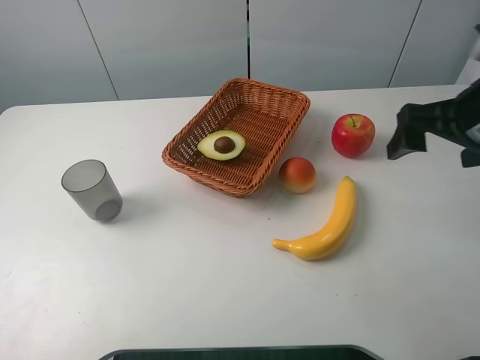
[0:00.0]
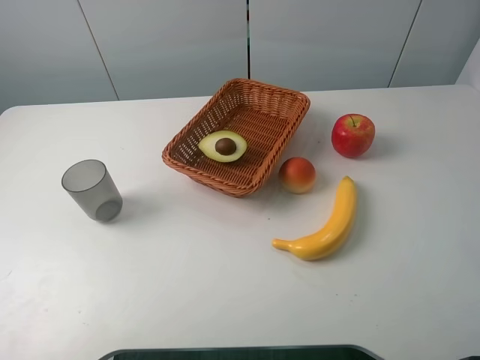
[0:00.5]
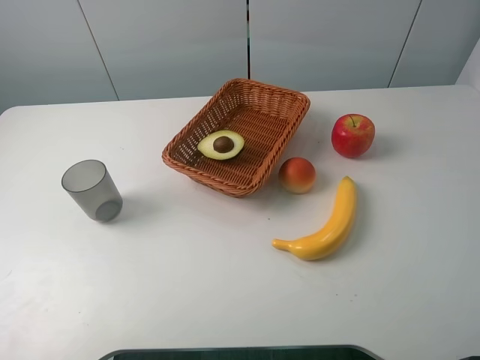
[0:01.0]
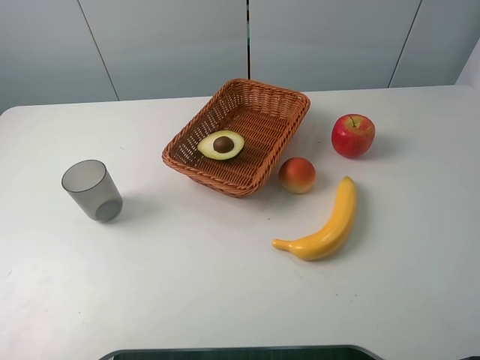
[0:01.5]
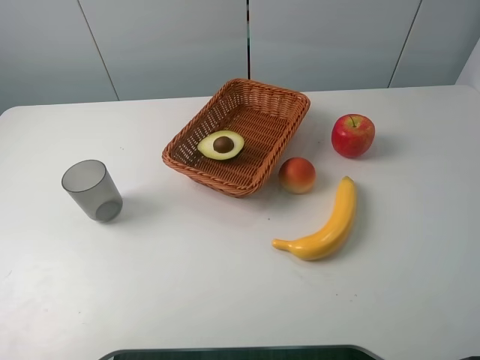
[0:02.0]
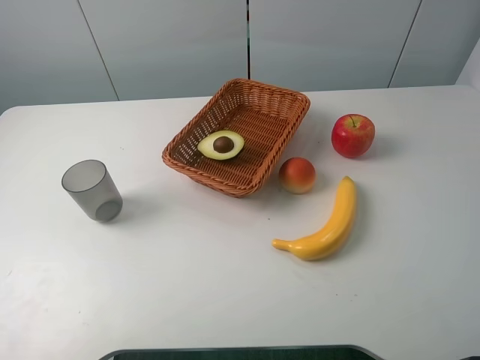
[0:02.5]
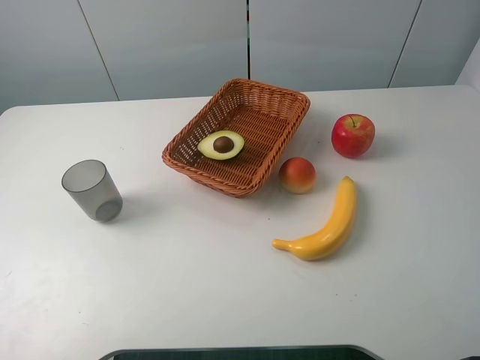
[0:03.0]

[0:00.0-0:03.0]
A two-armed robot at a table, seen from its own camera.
Task of the whole recording: randomly pick up an item from the table and put it in the basket.
0:00.0 to 0:01.5: The right gripper travels backward by some 20 cm.

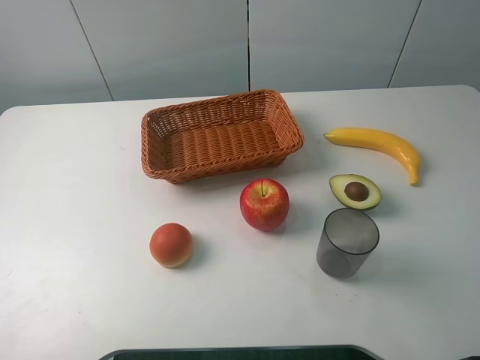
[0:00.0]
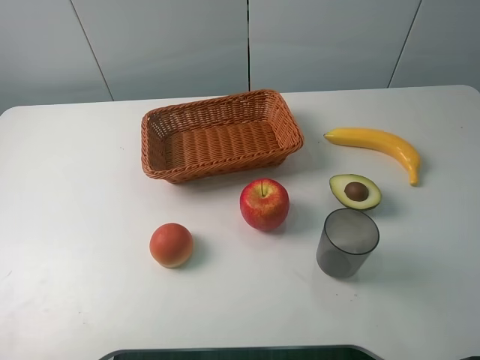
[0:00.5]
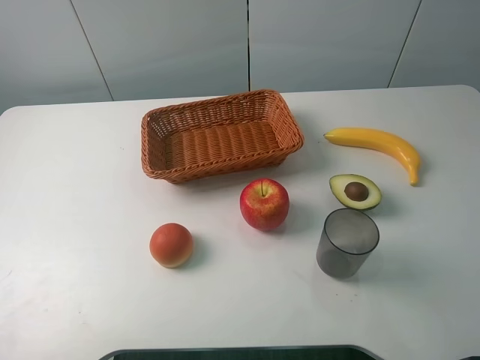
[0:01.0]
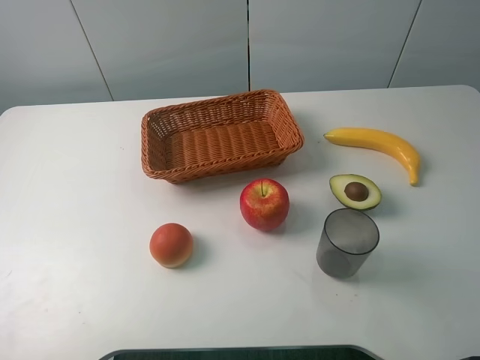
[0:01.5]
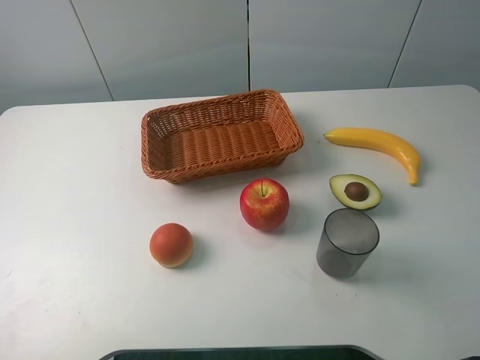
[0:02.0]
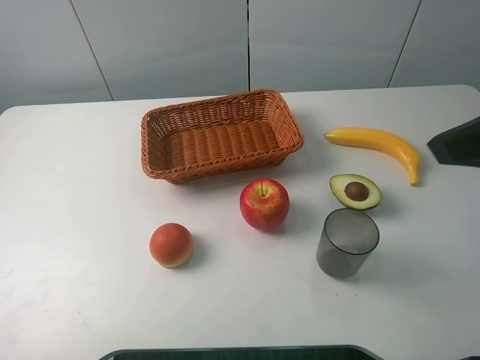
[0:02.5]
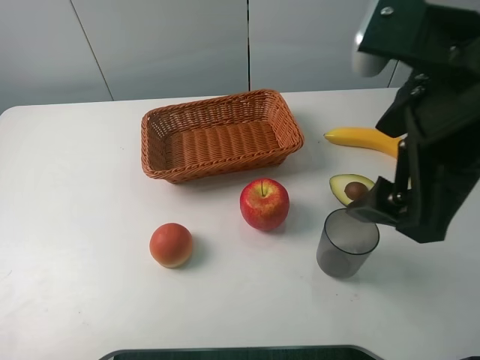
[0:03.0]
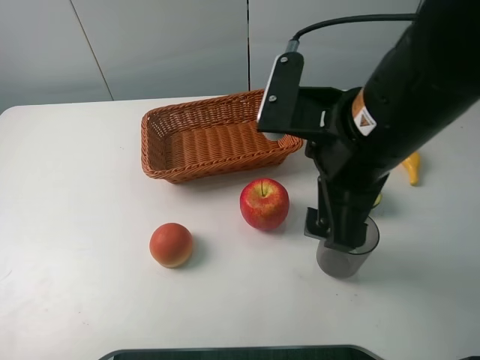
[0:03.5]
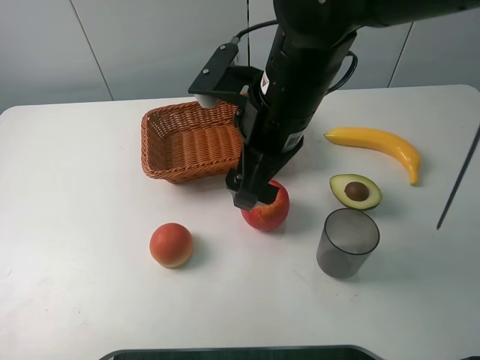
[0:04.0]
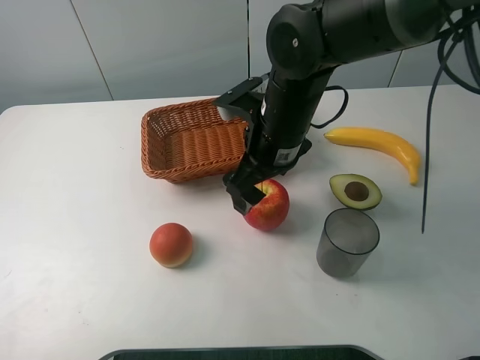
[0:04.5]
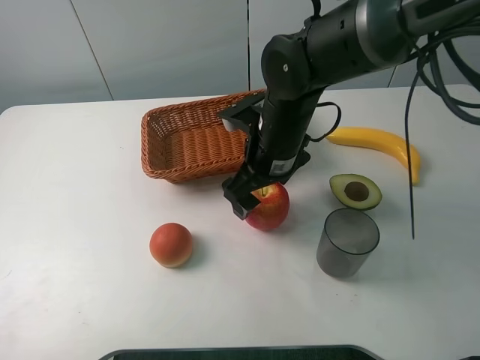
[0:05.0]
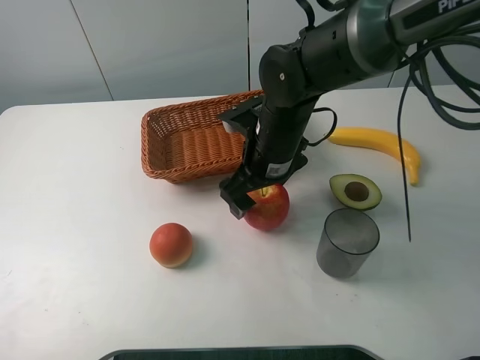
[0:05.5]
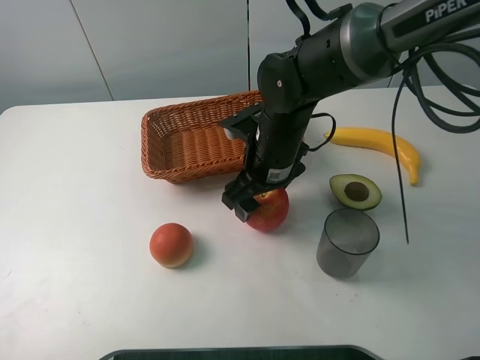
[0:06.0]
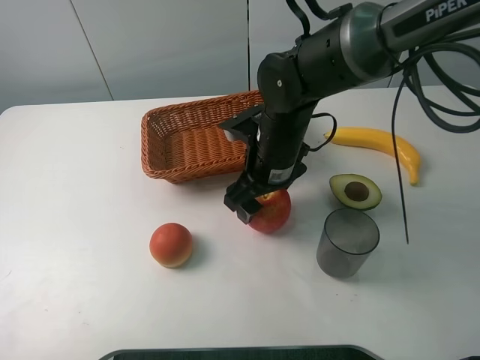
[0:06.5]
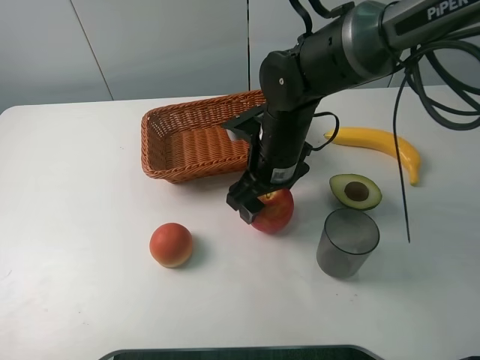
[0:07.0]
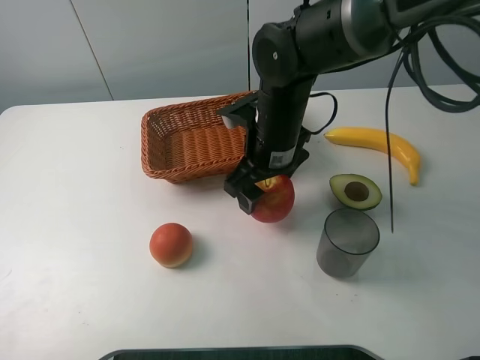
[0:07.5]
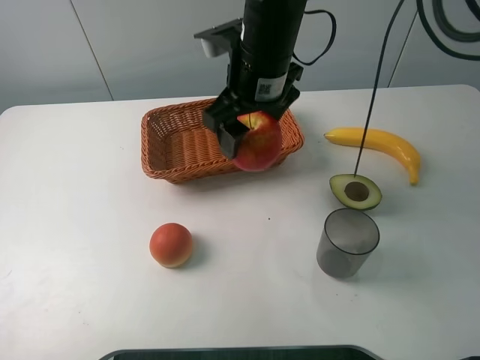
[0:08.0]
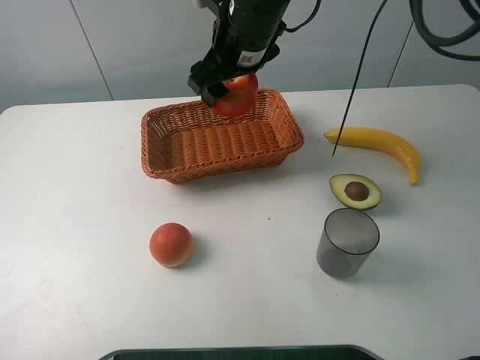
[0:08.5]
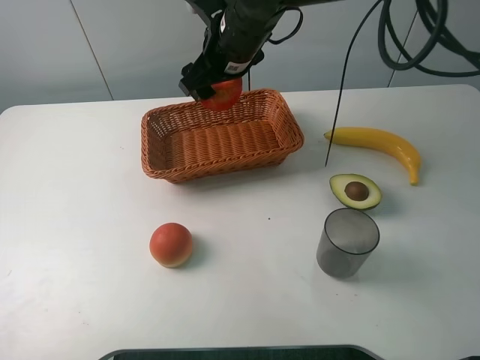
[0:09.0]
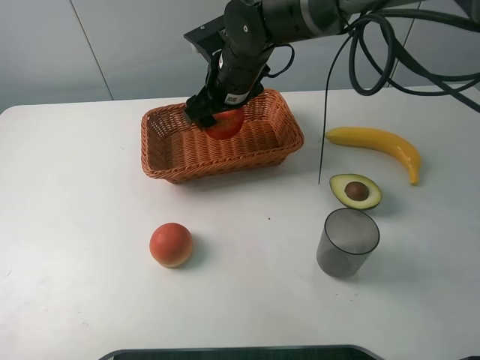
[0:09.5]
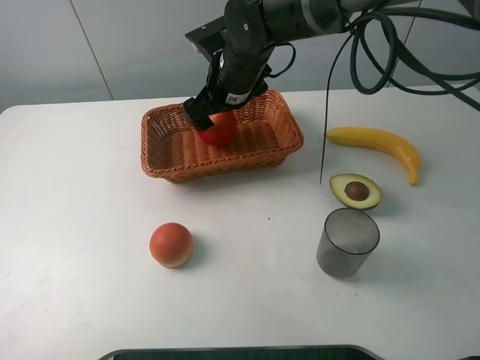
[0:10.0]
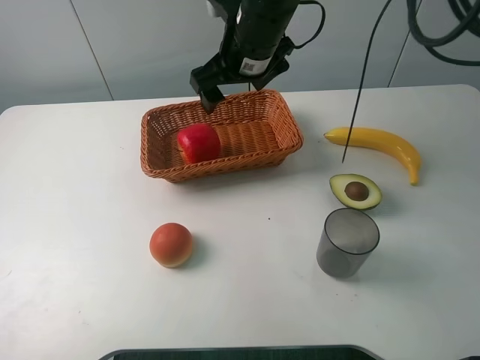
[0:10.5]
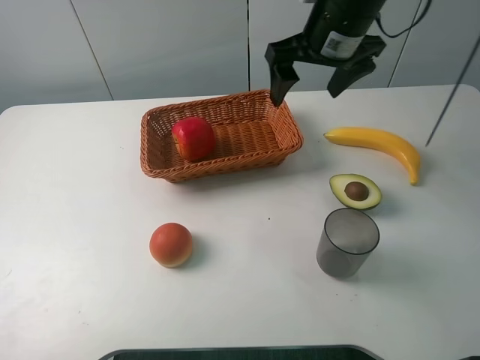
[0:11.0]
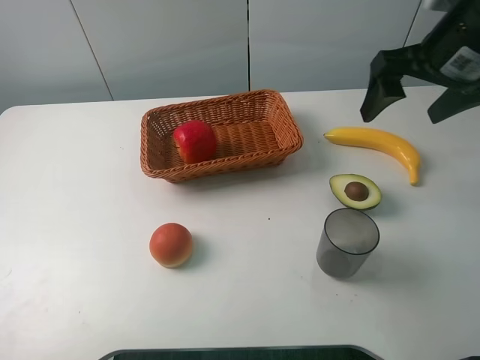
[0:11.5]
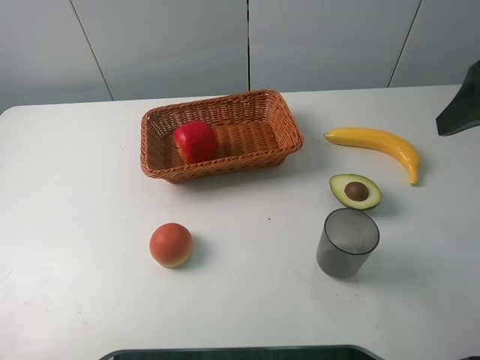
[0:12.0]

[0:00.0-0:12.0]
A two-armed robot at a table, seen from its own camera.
Task of the whole recording: randomly pick up an item from the table and put it in the basket.
Step, 0:00.0 to 0:06.0: Grasp the apple with the right gripper.
Step, 0:06.5 to 0:09.5: Place the apple into the basket with the right gripper.
0:02.0 to 0:04.0: The right gripper travels to the left and forward by approximately 30 cm.
0:04.0 to 0:06.0: The right gripper shifts about 10 cm downward, and closes its fingers.
0:06.0 to 0:08.0: The right gripper travels upward by approximately 10 cm.
0:08.0 to 0:10.0: The right gripper is displaced downward and forward by about 10 cm, and opens up.
0:10.0 to 0:12.0: The right gripper moves to the right, backward and upward, some 35 cm.

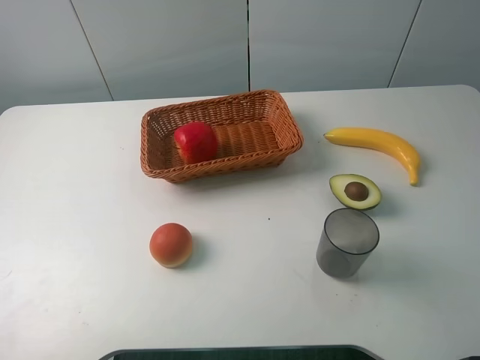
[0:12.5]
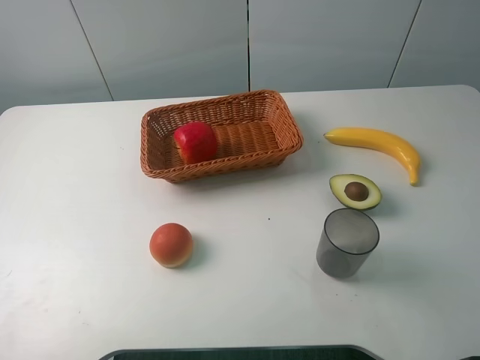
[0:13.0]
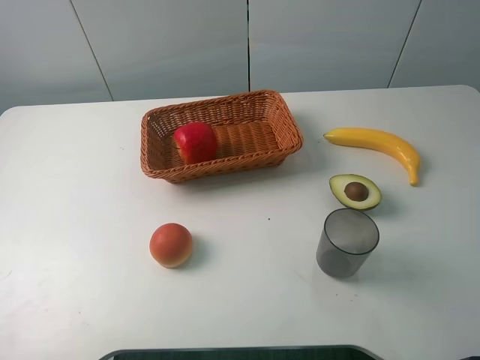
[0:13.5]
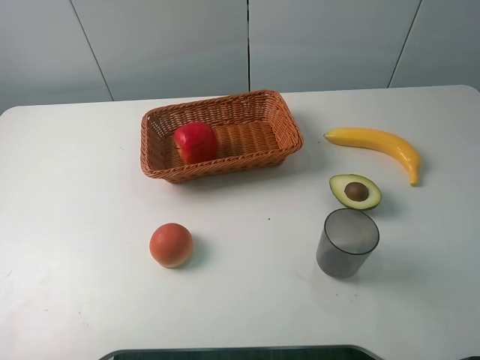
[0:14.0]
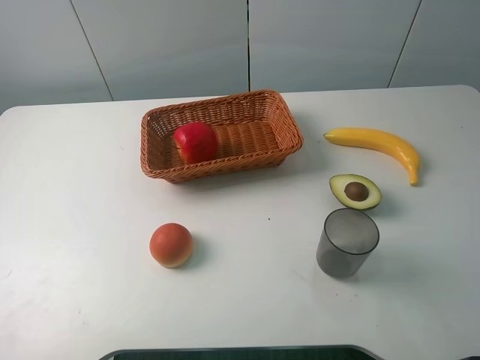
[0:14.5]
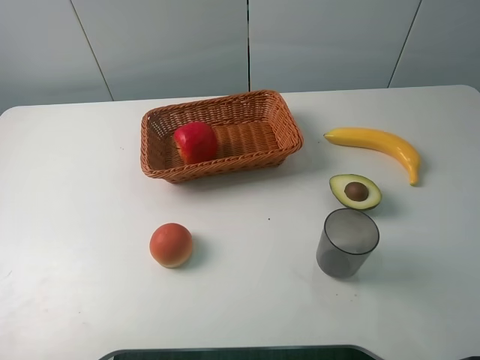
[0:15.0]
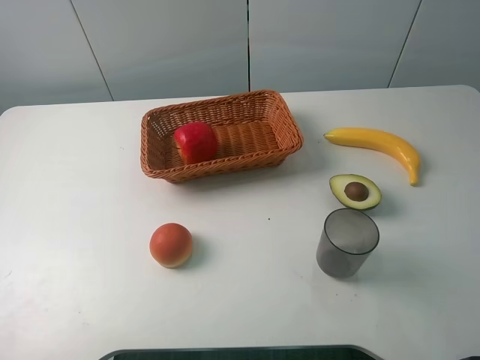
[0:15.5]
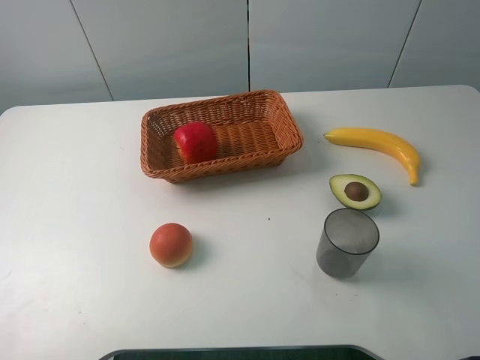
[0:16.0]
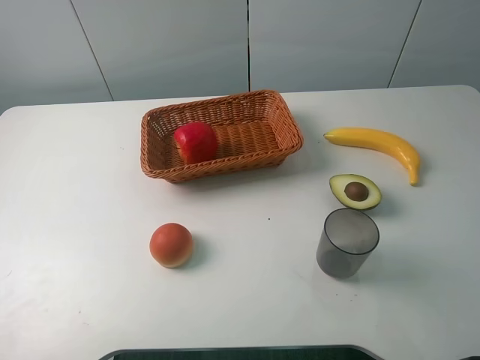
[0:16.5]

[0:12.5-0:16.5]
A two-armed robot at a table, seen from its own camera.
Task of the whole recording: randomly pick up an item from the table and put it in the basket.
0:14.5 to 0:16.5: Both grippers stay about where they are.
